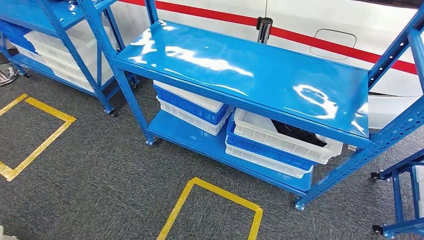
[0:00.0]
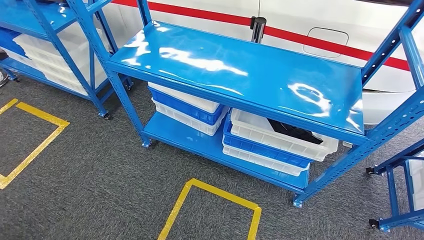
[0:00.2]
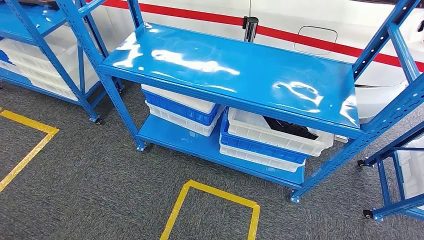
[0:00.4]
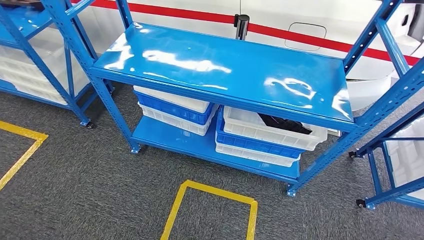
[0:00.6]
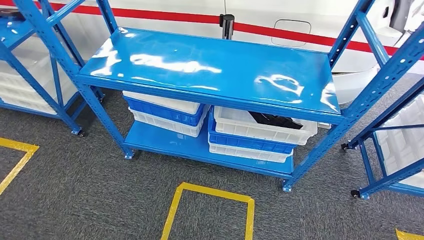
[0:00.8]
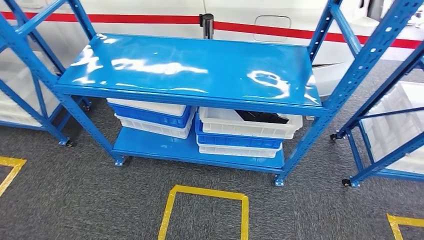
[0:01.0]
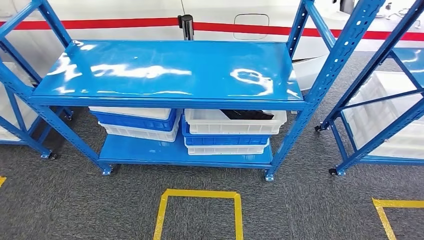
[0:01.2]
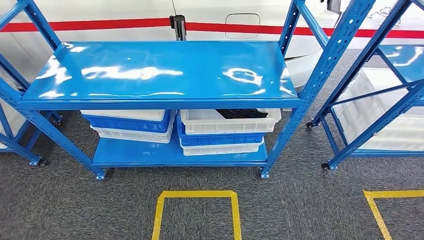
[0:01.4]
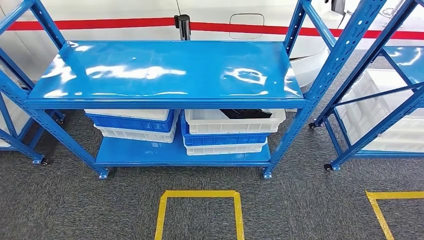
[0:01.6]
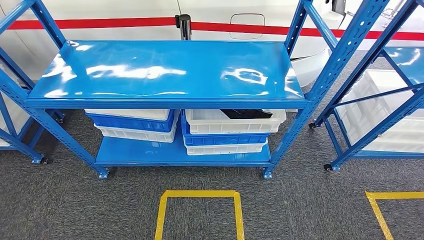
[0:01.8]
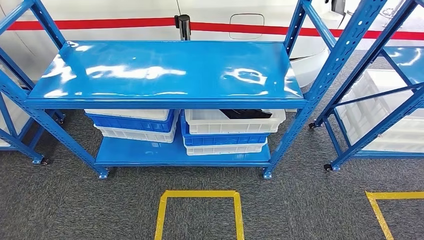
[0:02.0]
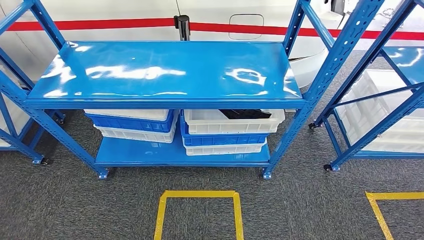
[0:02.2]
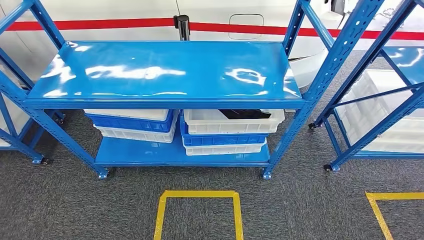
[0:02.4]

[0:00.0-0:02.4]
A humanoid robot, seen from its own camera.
Step, 0:00.0 to 0:02.2: Move to the initial position of the shelf.
